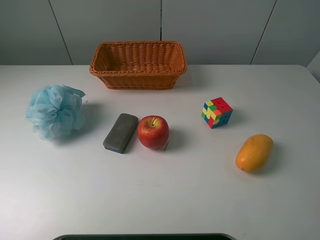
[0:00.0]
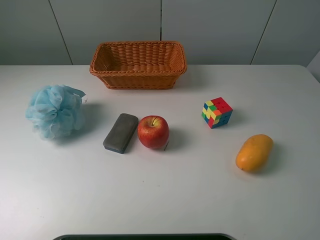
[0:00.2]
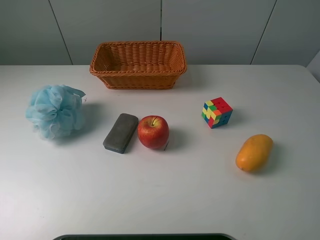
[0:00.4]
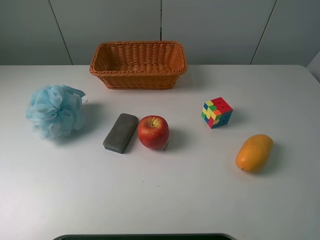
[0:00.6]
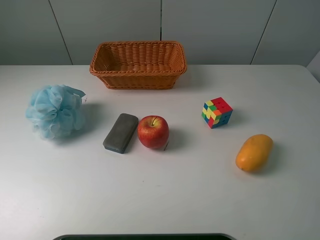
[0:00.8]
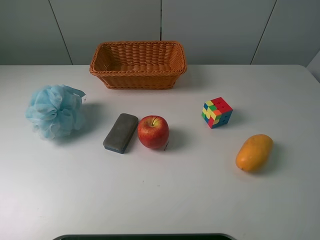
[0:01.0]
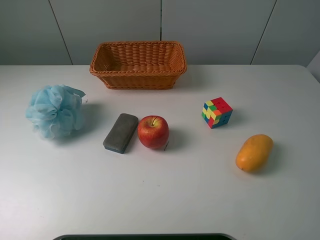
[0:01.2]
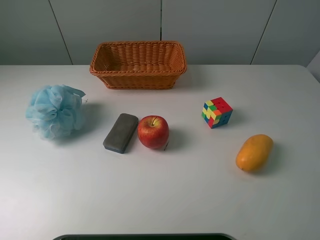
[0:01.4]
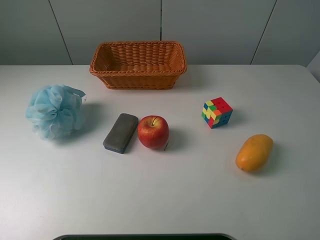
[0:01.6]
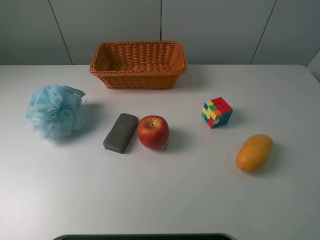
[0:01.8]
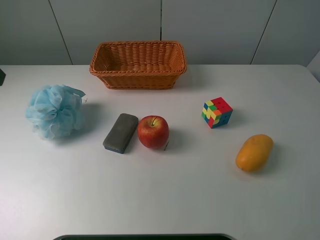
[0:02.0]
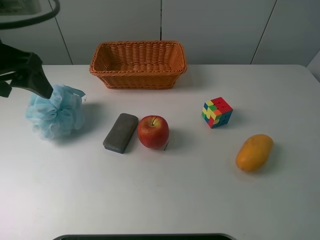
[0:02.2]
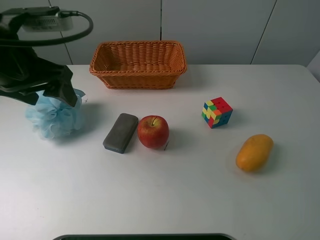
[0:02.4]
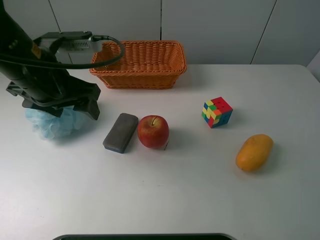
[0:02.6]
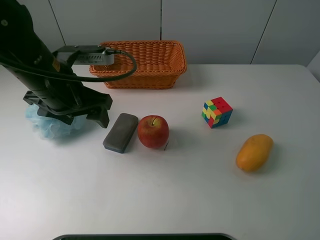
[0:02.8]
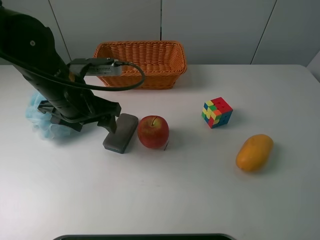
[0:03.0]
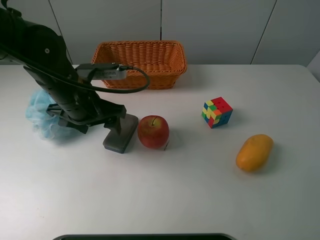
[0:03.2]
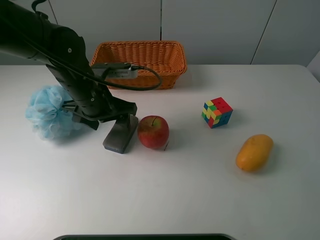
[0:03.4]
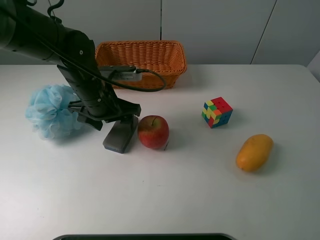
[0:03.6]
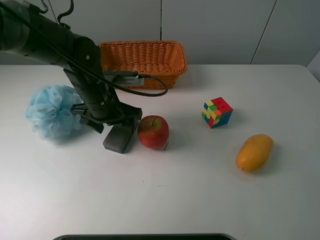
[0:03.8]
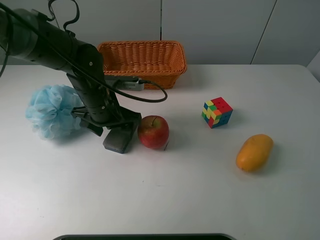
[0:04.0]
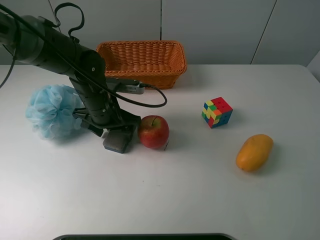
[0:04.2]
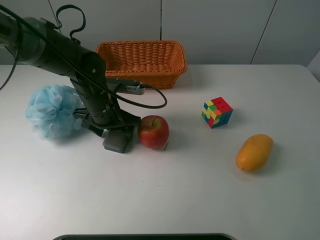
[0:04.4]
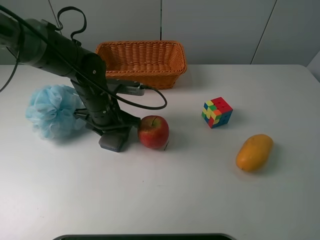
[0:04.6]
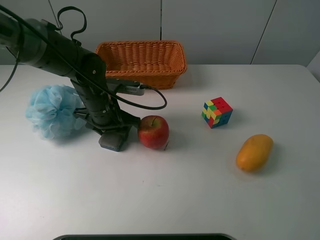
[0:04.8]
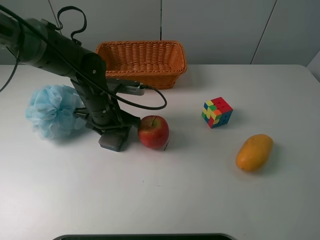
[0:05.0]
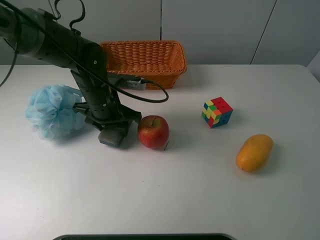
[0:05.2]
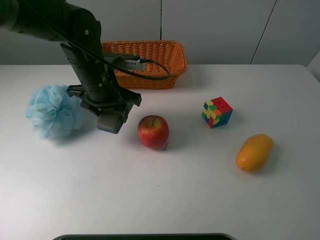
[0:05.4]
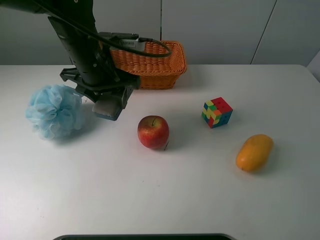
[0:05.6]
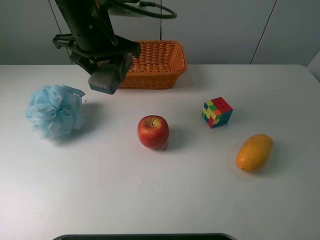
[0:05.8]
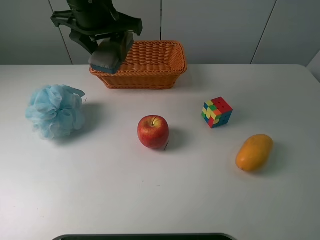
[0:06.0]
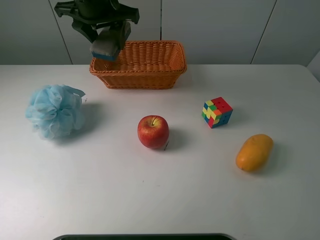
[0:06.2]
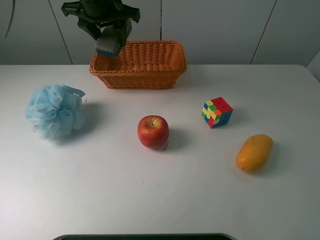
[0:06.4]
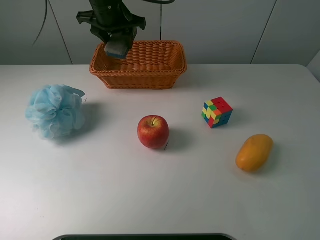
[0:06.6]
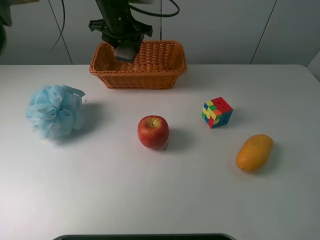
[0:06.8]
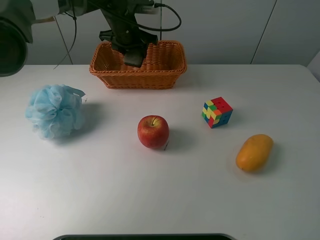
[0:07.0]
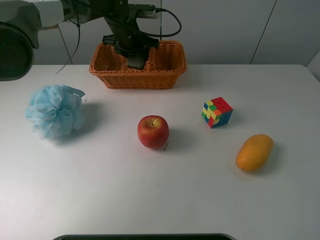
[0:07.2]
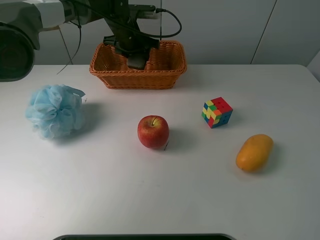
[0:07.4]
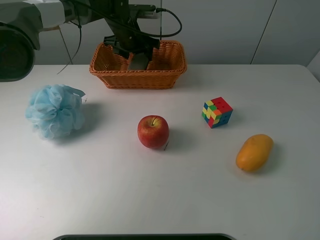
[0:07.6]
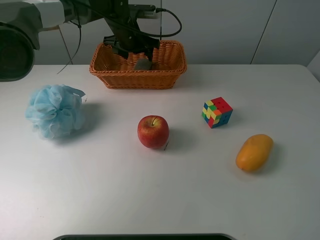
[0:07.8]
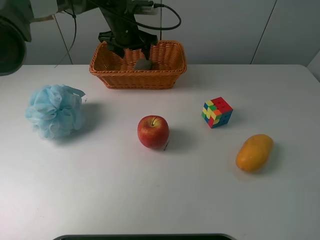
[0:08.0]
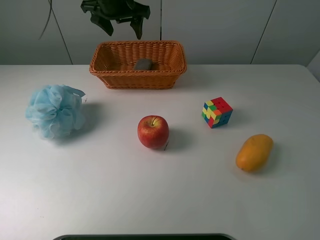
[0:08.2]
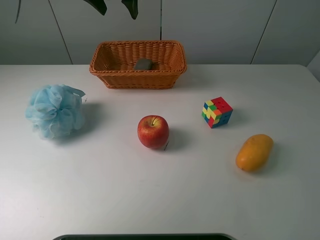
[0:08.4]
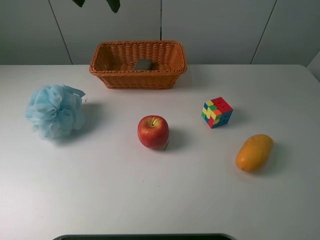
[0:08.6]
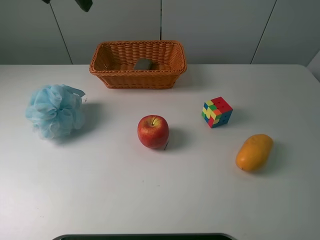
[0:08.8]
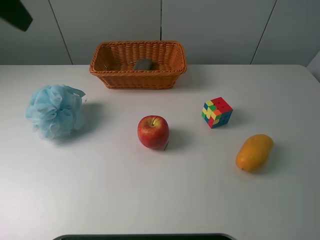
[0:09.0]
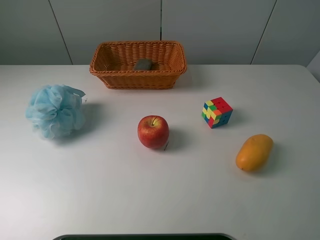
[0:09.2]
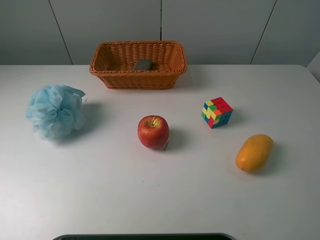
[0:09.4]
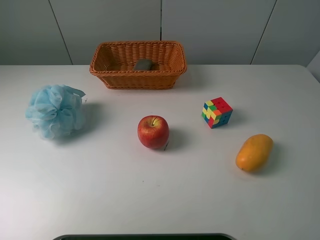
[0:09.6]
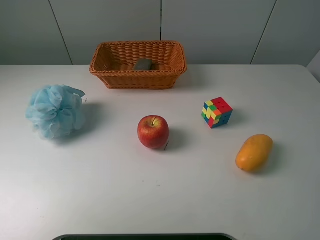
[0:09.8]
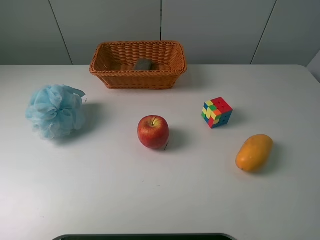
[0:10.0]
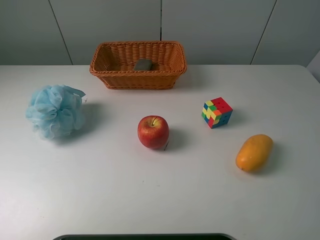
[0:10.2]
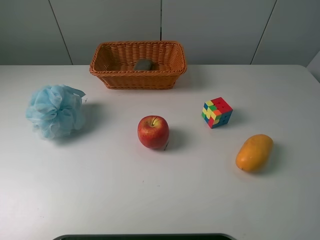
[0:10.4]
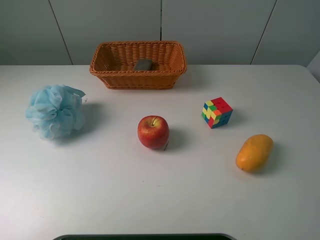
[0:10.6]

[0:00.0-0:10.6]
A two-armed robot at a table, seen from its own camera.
Task of the whole recording: use a picker to grab the item closest to the apple and place it in the basket.
Step, 0:00.0 to 0:05.0: Grasp the chalkboard eraser with the left gripper.
Step, 0:05.2 to 0:07.6: Place the chalkboard eraser into the basket with the left gripper.
0:01.6 to 0:03.0: The left gripper heads downward, to the right and forward, covering some 30 cm.
0:03.0 to 0:04.6: The left gripper travels downward by roughly 5 cm, and closes up.
0:04.6 to 0:06.0: The left gripper heads upward, covering some 20 cm.
0:06.0 to 0:07.6: The left gripper travels forward and downward by roughly 20 cm, and opens its fingers.
0:07.6 to 0:09.0: The left gripper shifts some 40 cm backward, upward and to the left.
0:09.0 to 0:10.6: The left gripper goes approximately 25 cm backward, downward and to the left.
